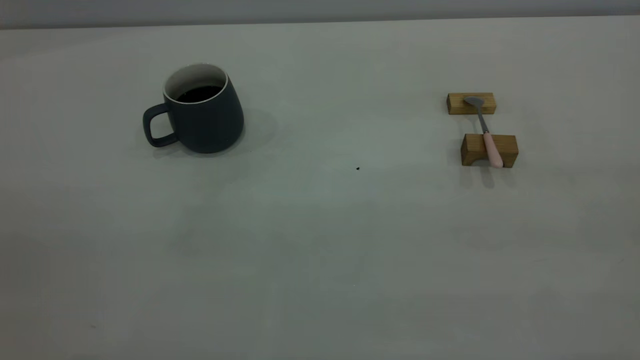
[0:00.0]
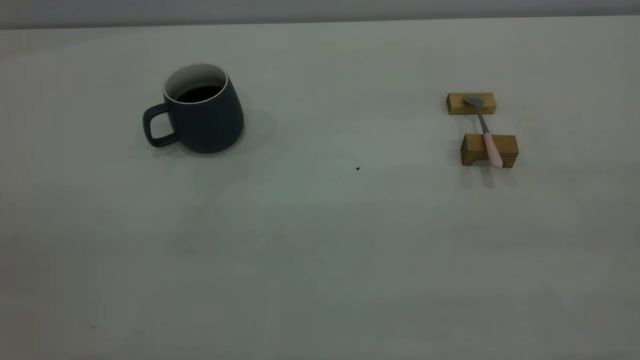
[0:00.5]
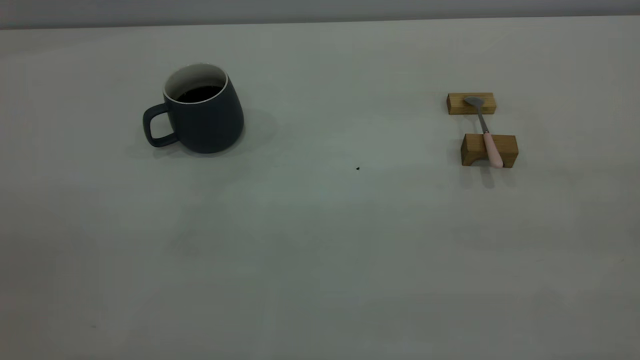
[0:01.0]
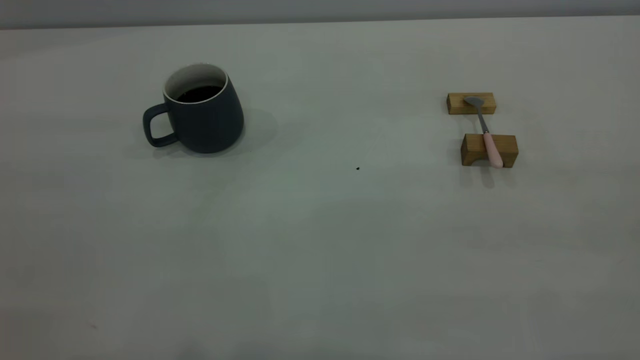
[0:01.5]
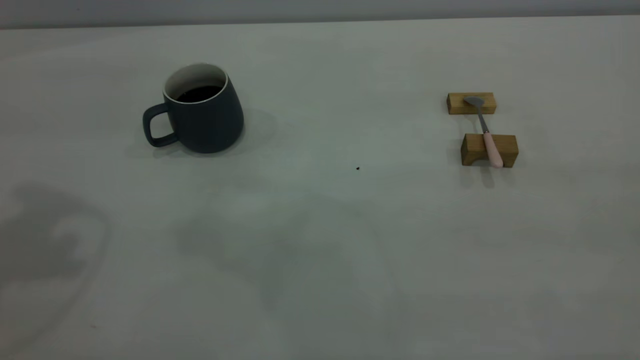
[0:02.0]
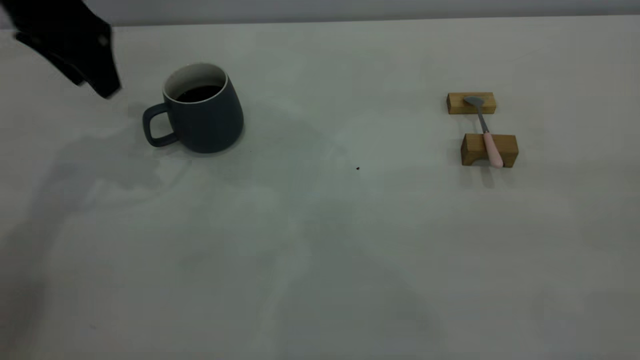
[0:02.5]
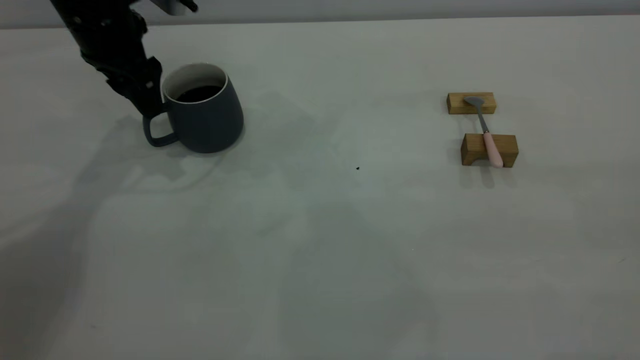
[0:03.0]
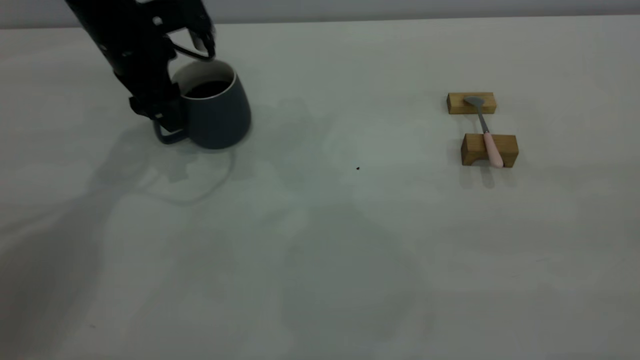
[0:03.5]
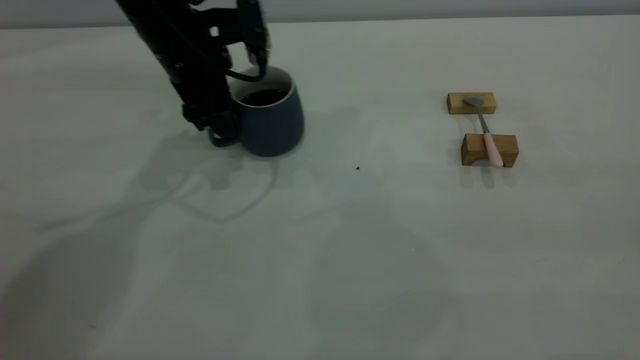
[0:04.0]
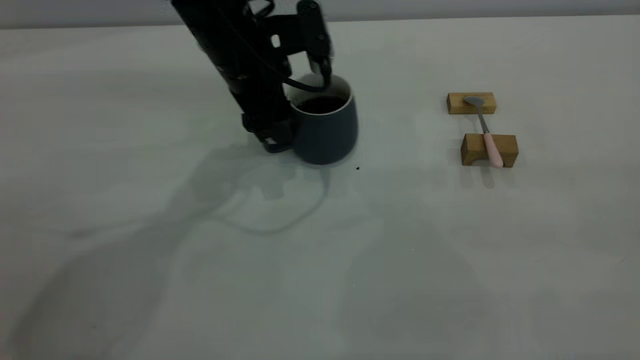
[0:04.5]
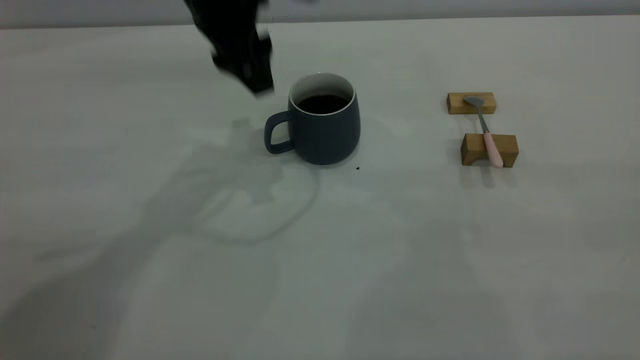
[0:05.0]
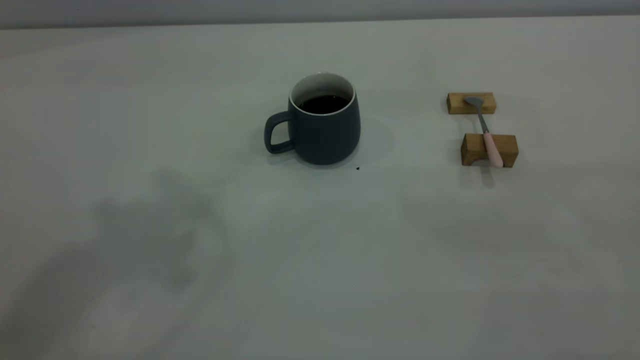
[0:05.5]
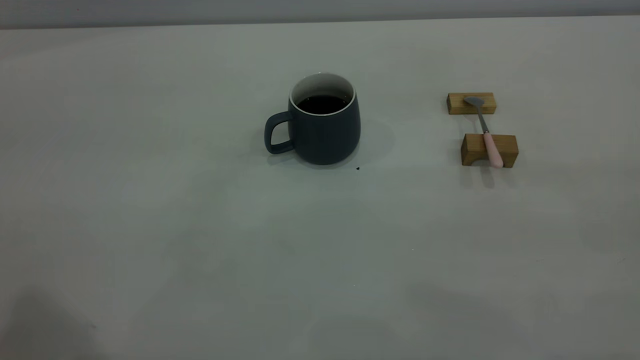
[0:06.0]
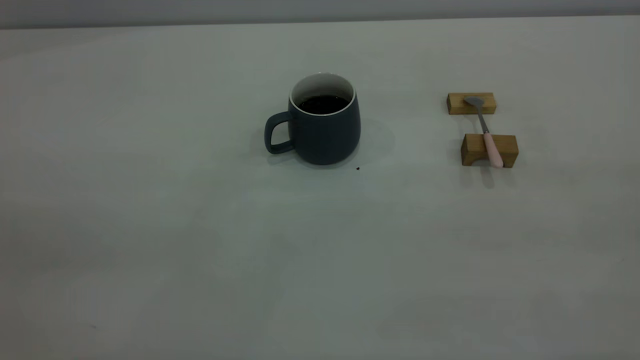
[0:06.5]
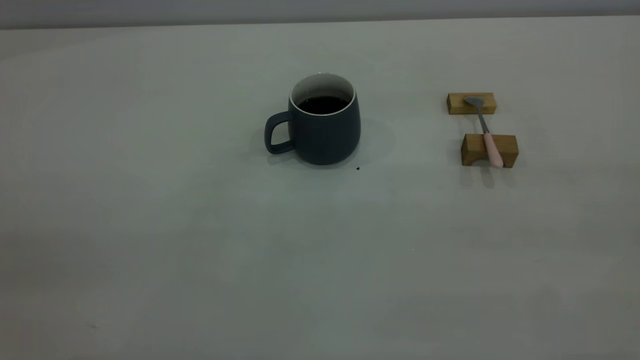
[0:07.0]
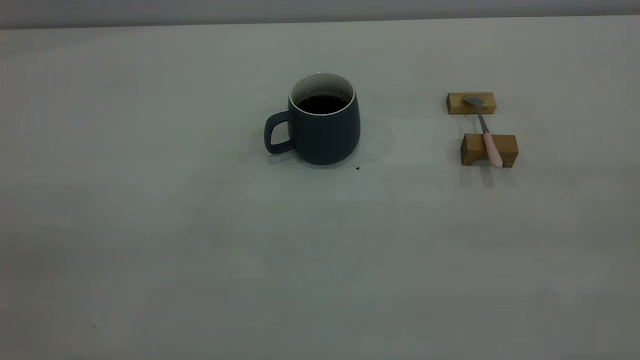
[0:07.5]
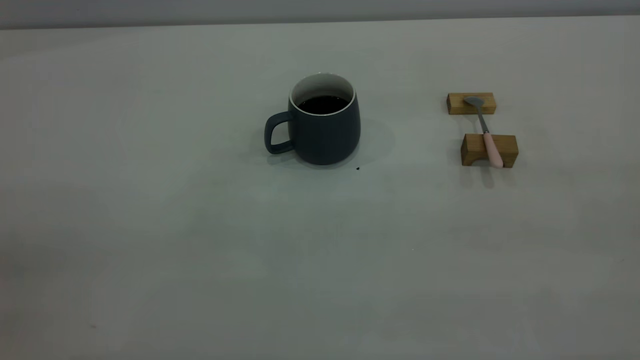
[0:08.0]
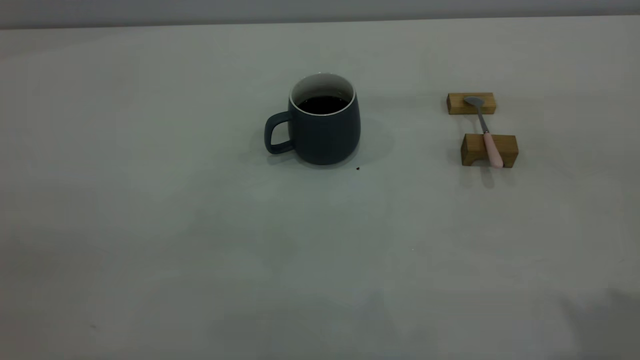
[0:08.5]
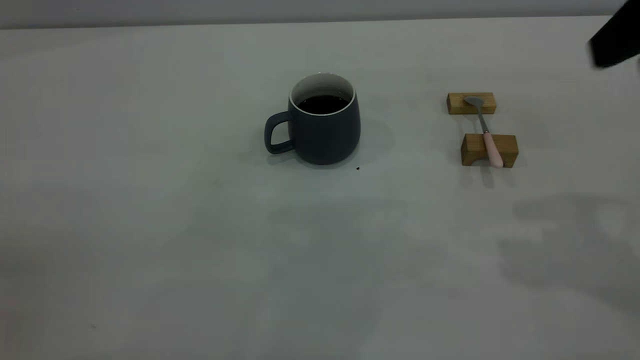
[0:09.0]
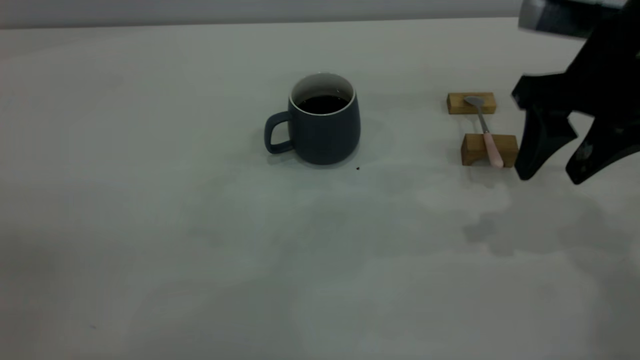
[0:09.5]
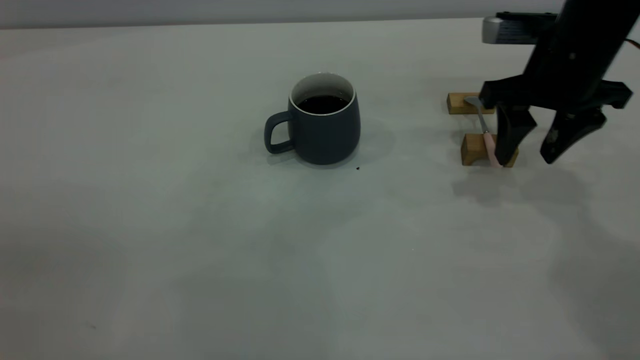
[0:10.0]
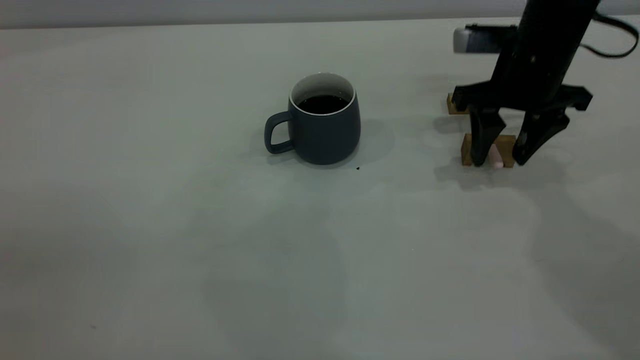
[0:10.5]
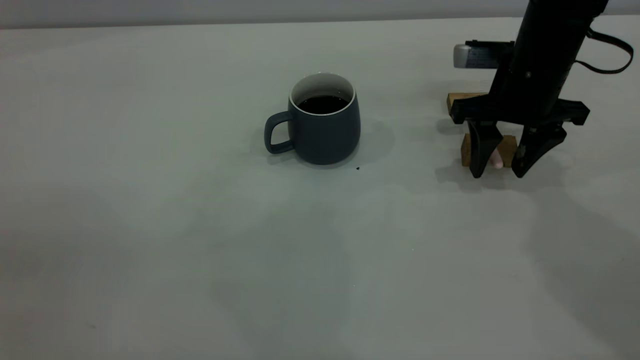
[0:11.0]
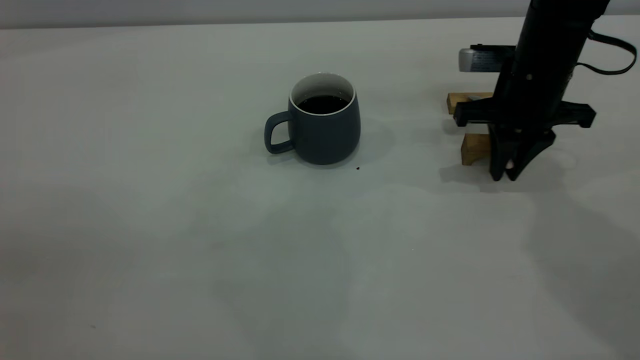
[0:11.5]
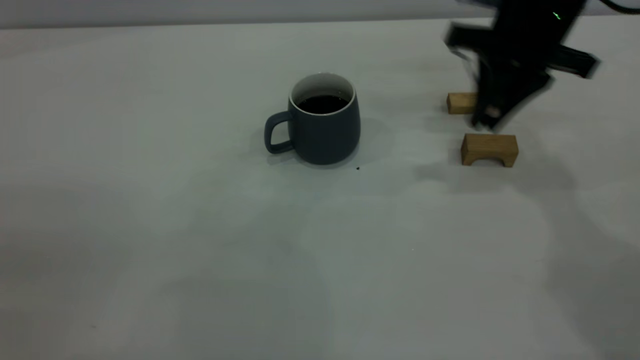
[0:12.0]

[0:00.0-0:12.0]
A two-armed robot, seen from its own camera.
Step, 0:00.0 to 0:04.5: Move the cup with coffee to the center of view.
Step, 0:05.0 to 0:11.5: Pick up the spoon.
0:02.0 to 0:04.0: The left gripper shifts roughly 30 cm downward, to the right and forward.
0:04.0 to 0:06.0: The left gripper is displaced upward and backward by approximately 40 cm.
0:08.0 to 0:10.0: The right gripper heads forward and downward, covering approximately 40 cm, and opens up.
0:10.0 to 0:12.0: The right gripper changes place by roughly 5 cm, and closes its fingers.

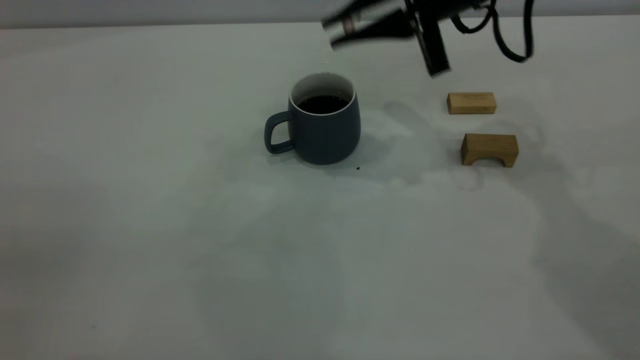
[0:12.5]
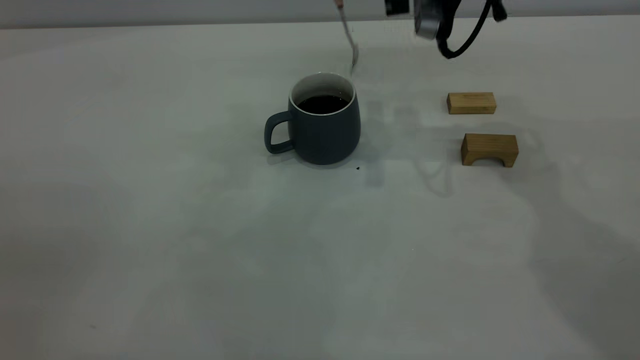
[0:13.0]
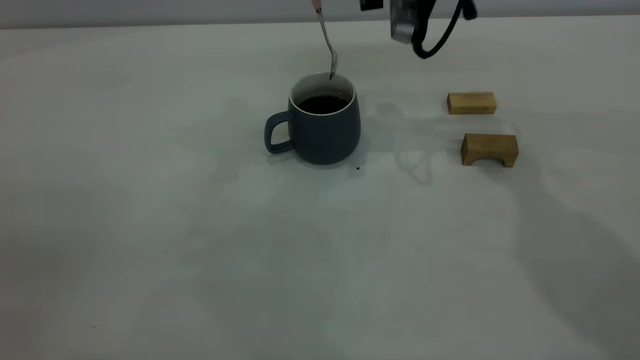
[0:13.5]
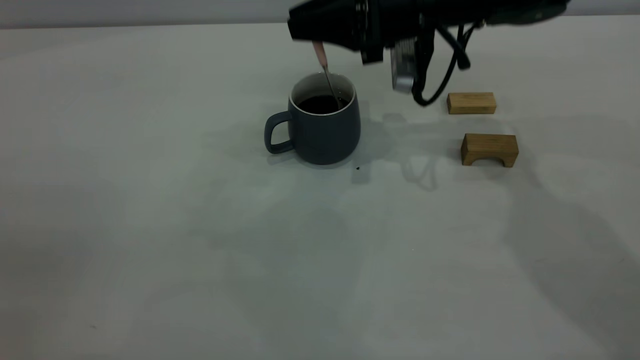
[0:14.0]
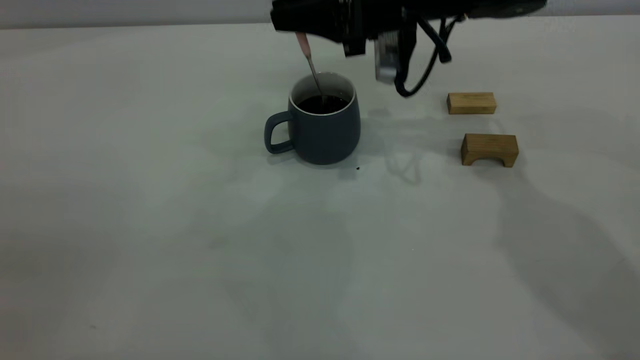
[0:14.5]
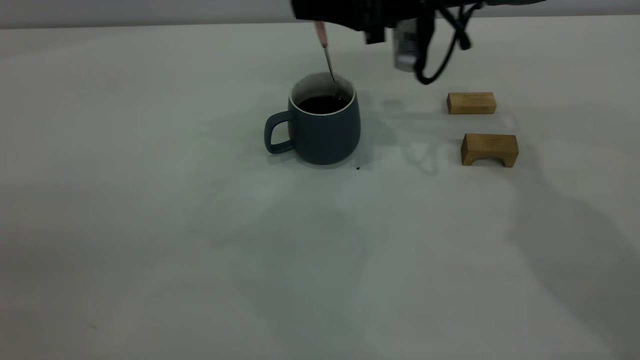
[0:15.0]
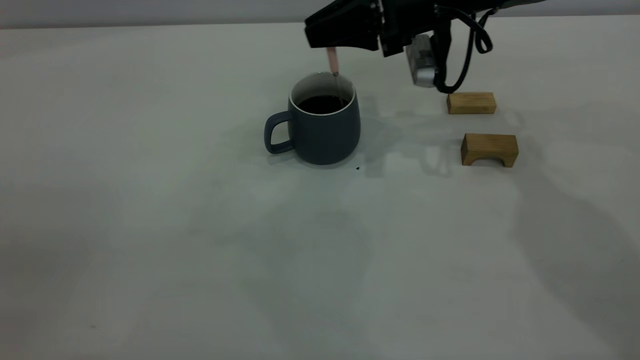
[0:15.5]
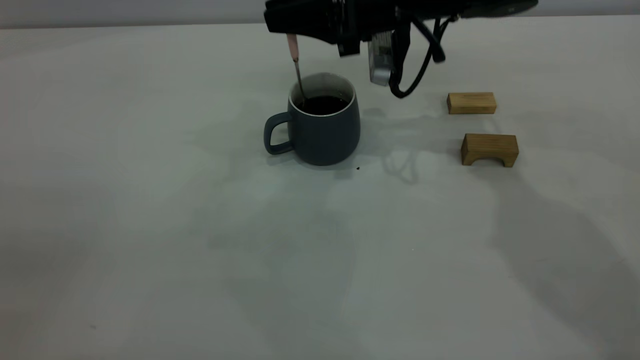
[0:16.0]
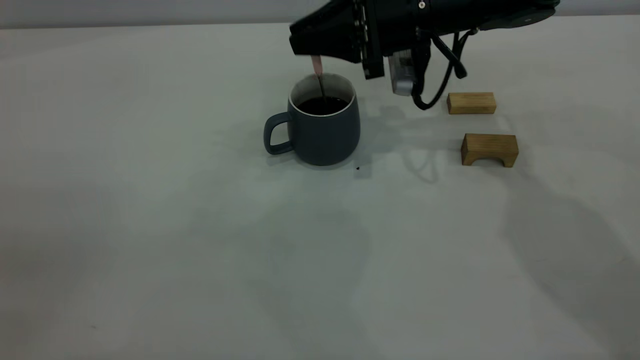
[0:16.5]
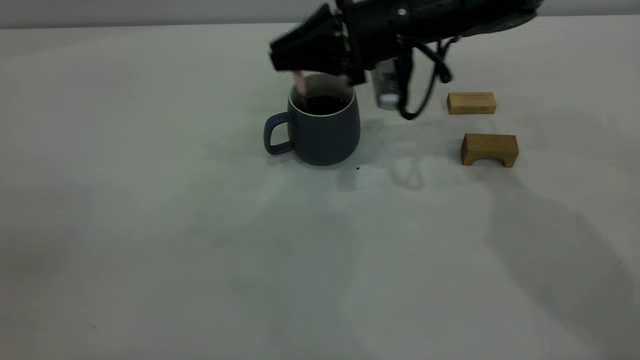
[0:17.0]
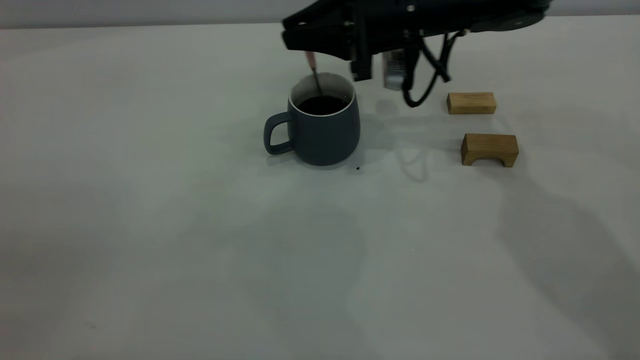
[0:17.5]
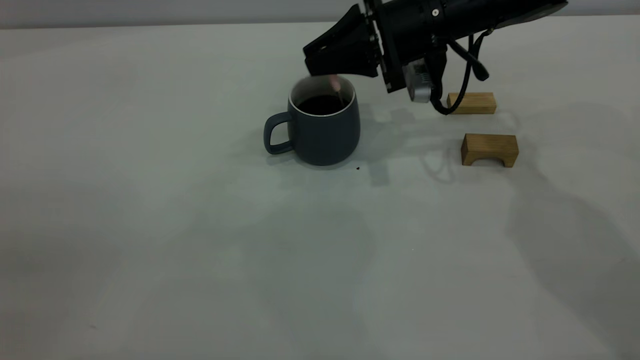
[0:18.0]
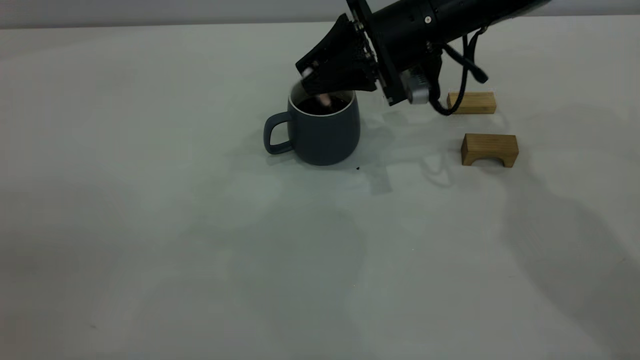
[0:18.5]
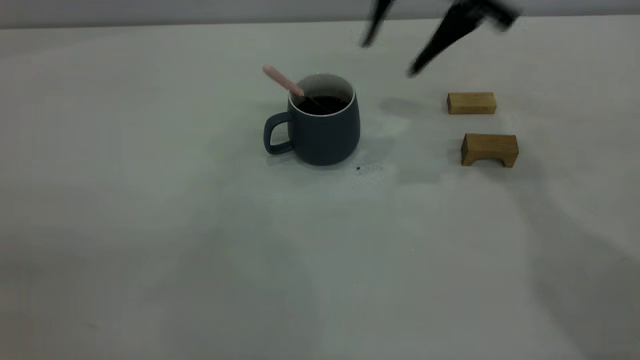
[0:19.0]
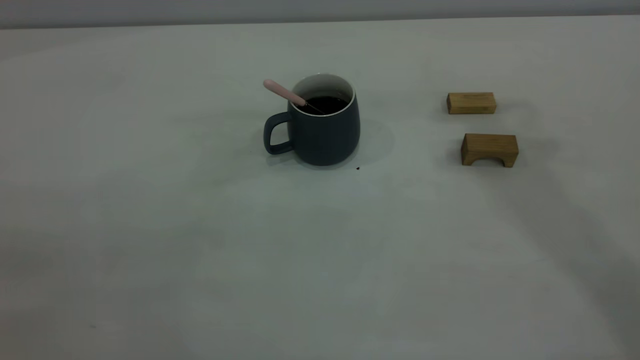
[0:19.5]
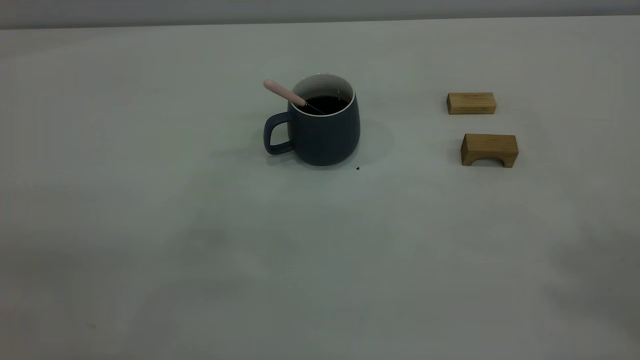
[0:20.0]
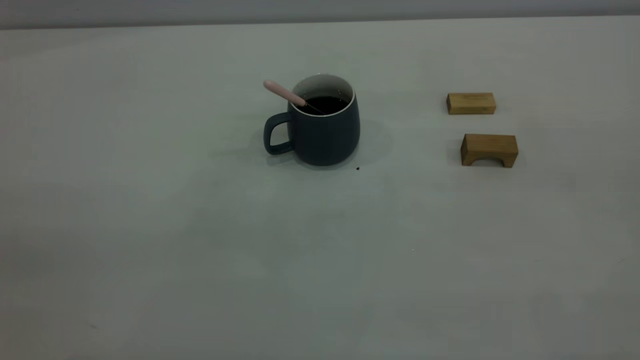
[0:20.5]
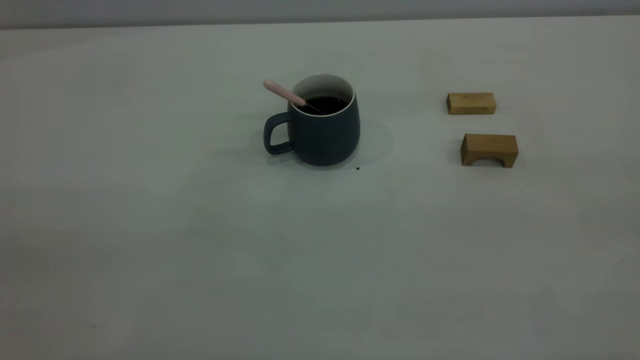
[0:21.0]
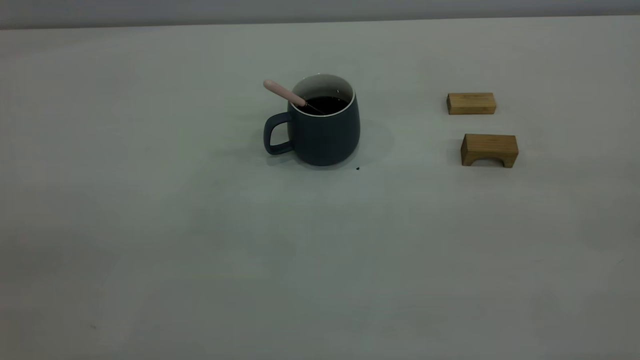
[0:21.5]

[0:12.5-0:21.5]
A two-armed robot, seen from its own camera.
Step, 0:12.5 to 0:18.5: Stir the coffee in the cup.
0:12.5 to 0:14.5: The right gripper changes place by approximately 5 cm.
0:14.5 to 0:17.0: The grippers move only a little.
0:17.0 to 0:19.5: The right gripper moves upward and to the right, approximately 35 cm, and opens.
